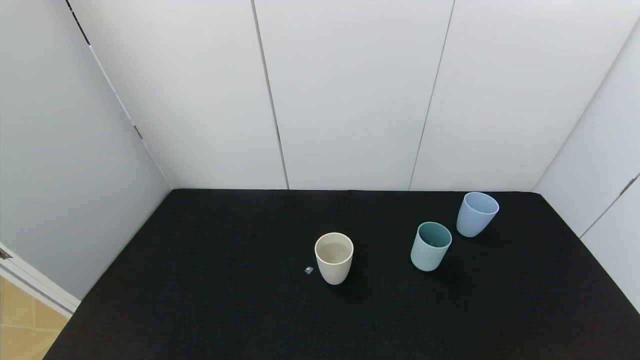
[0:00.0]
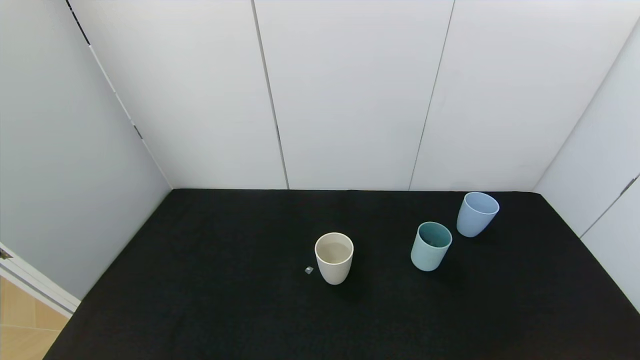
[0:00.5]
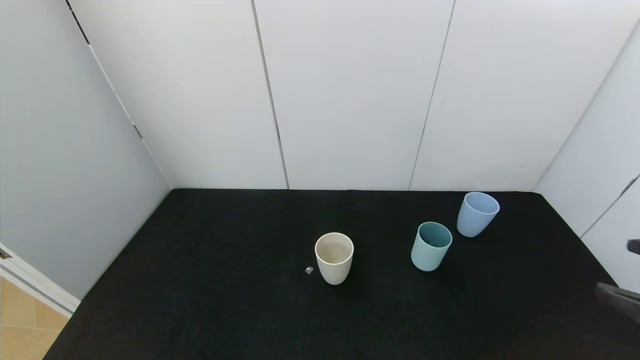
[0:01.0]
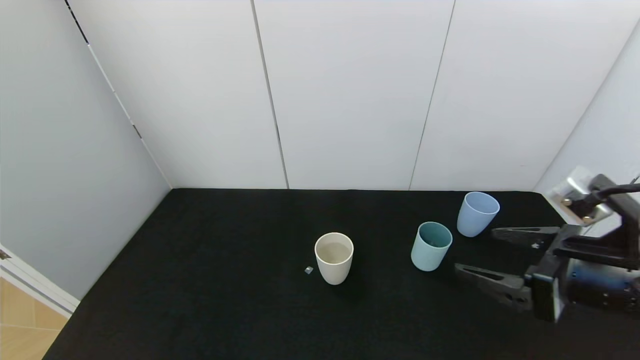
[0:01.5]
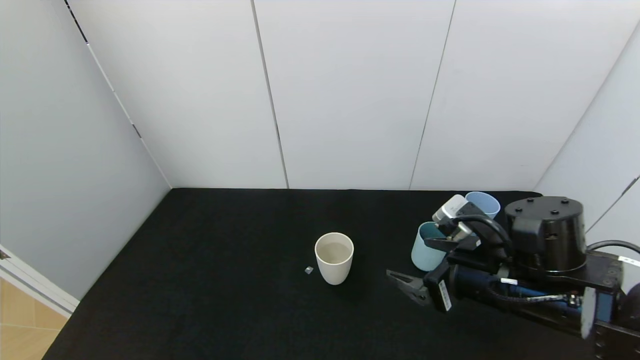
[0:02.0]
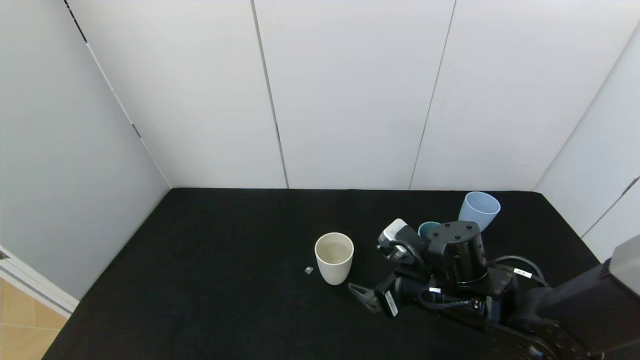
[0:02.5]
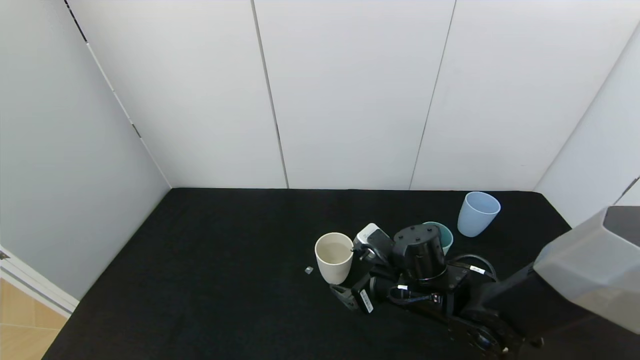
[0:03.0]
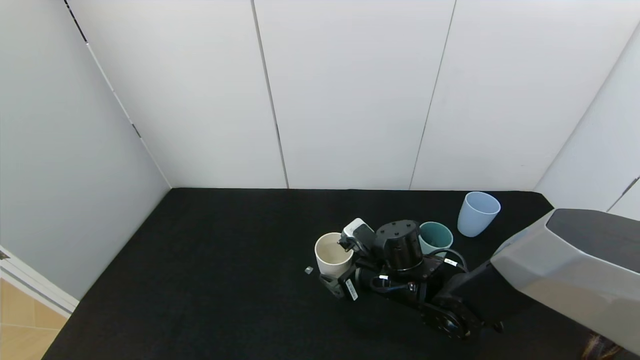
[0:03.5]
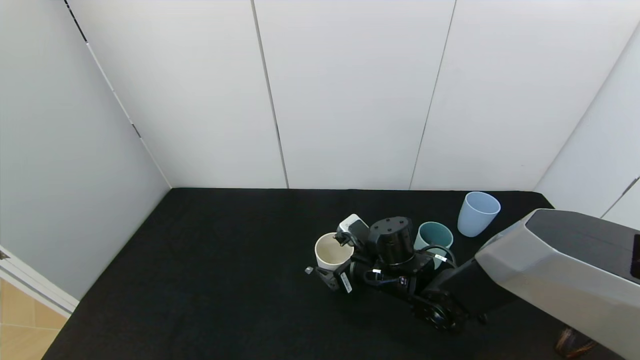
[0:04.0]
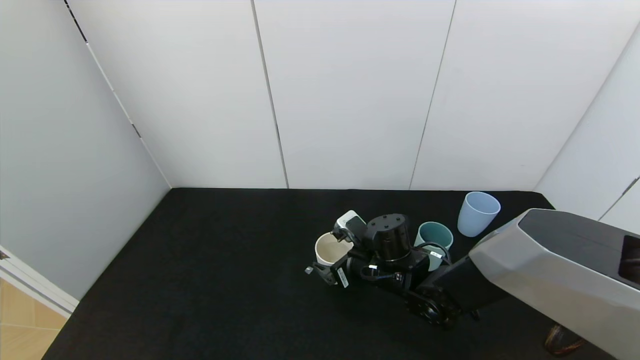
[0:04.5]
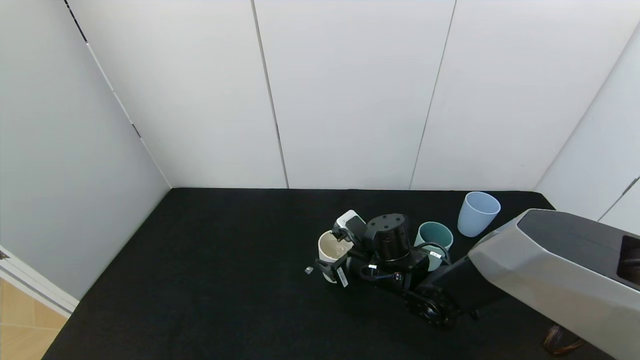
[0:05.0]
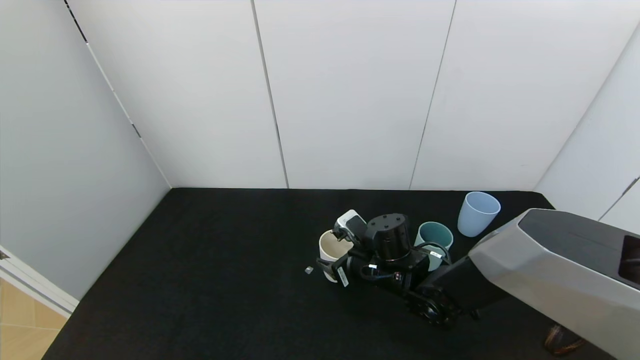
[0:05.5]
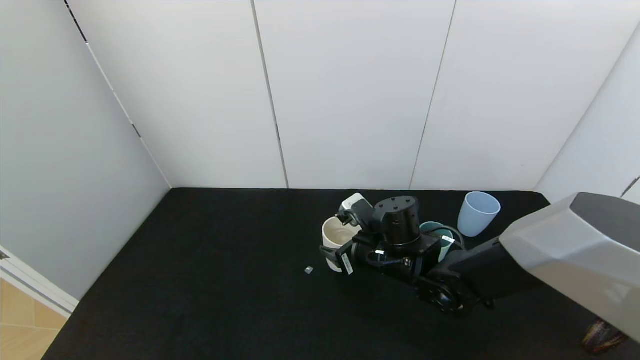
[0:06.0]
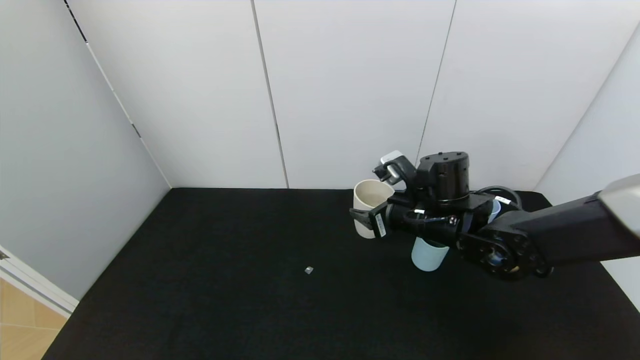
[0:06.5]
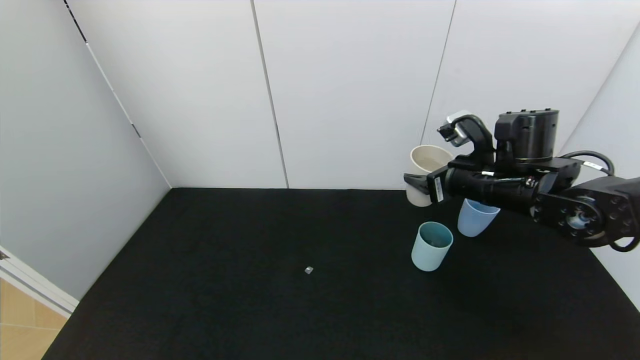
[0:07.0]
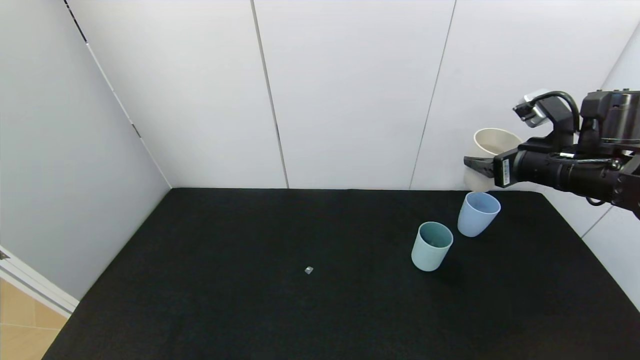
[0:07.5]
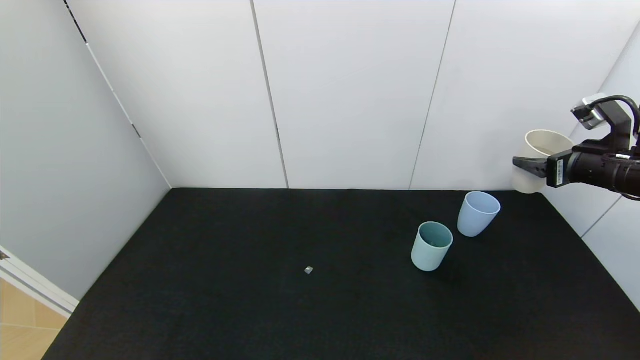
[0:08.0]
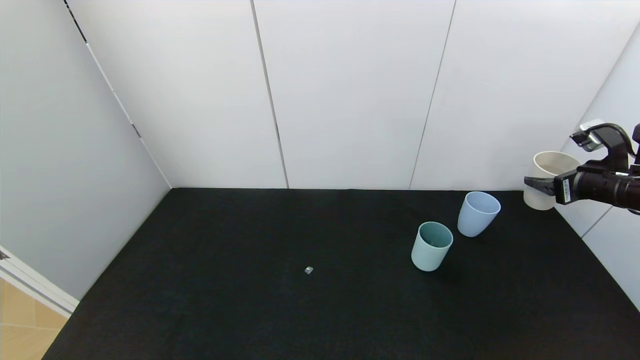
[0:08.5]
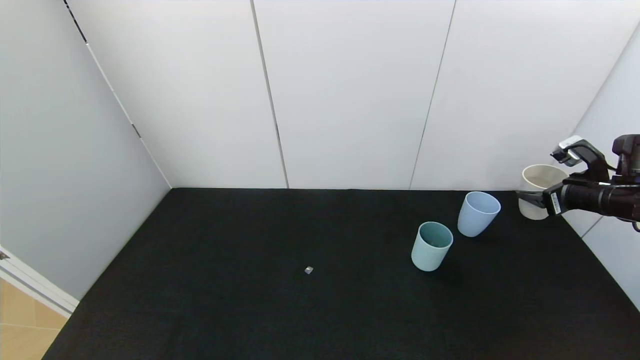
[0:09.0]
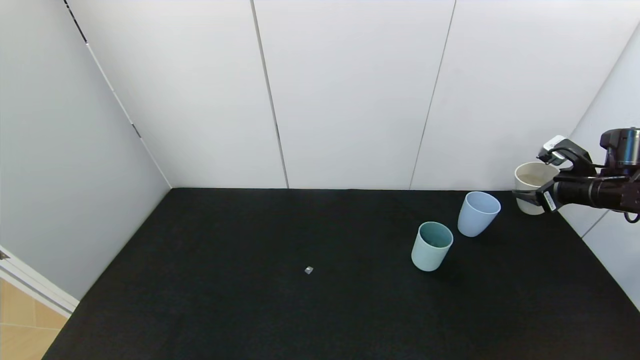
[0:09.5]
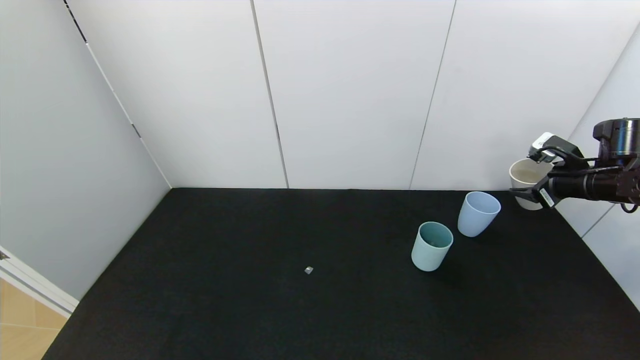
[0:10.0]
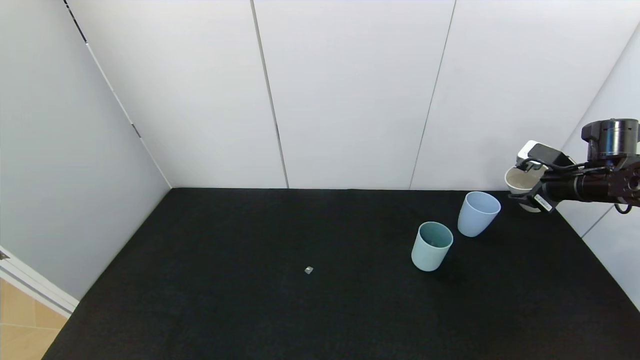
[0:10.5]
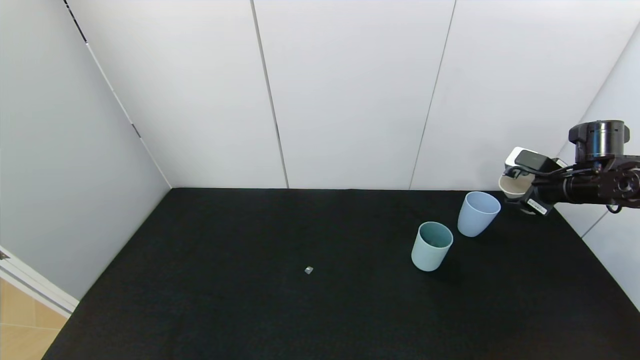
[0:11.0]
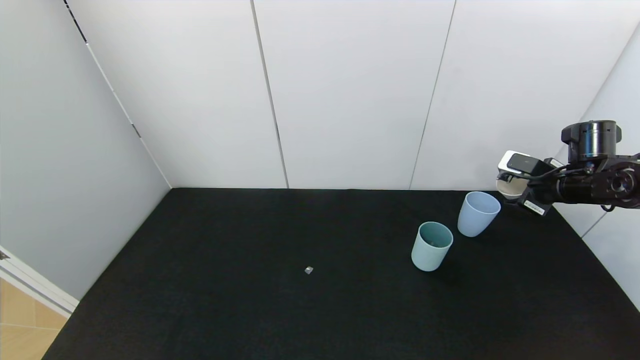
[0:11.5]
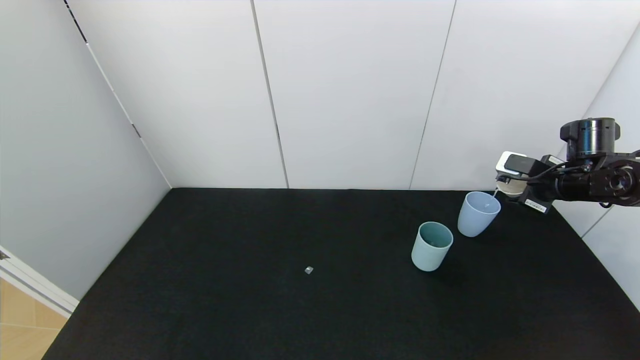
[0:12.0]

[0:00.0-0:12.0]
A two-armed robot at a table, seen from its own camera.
Task of the whole recording: use the gripper to pour the water into the other two cups on black table.
Step, 0.0 to 5.0 s: Grasp the white cup with the right gripper.
0.0 to 2.0 s: The right gripper goes some 35 cm forward and to the left.
2.0 to 4.0 s: The right gripper heads to the left, forward and downward, covering about 15 cm.
4.0 to 6.0 s: The right gripper closes up.
6.0 to 8.0 s: The right gripper goes roughly 35 cm to the right and upward.
8.0 to 10.0 s: The right gripper travels forward by some 5 cm.

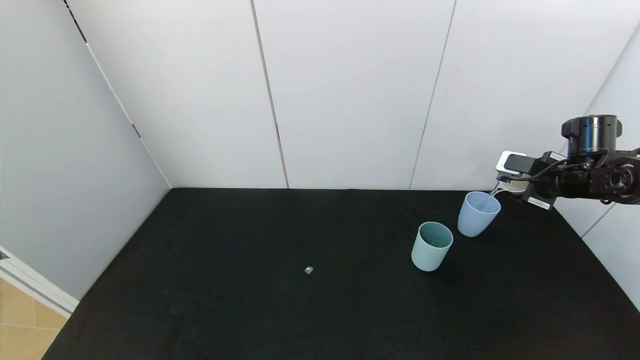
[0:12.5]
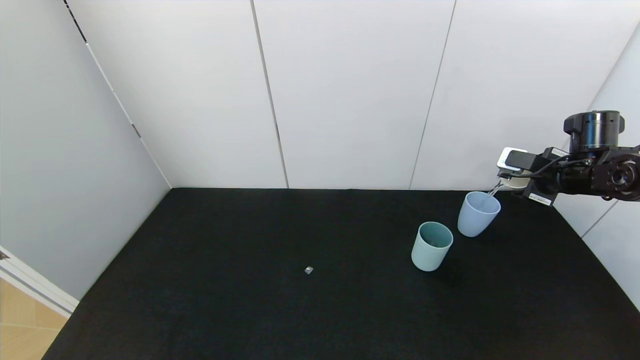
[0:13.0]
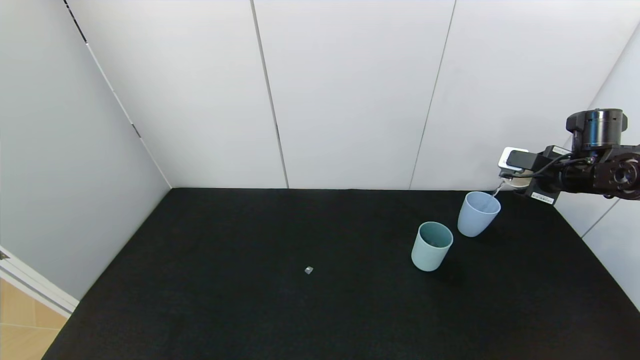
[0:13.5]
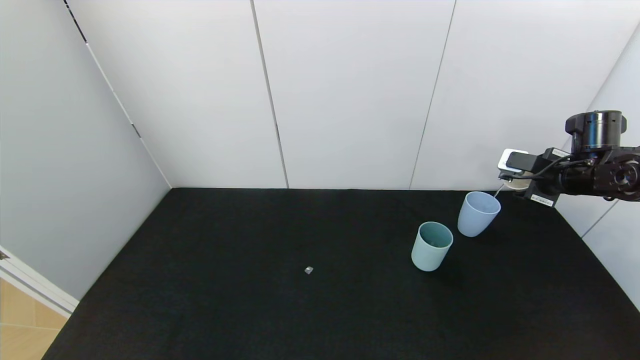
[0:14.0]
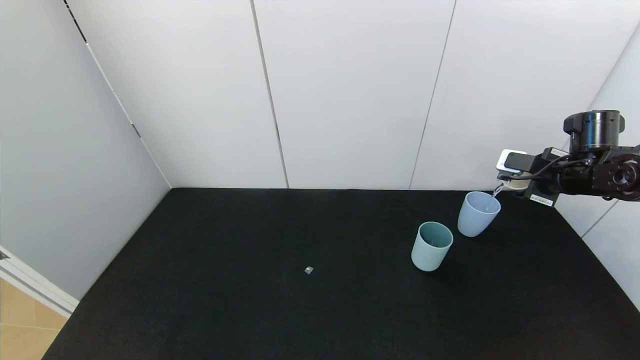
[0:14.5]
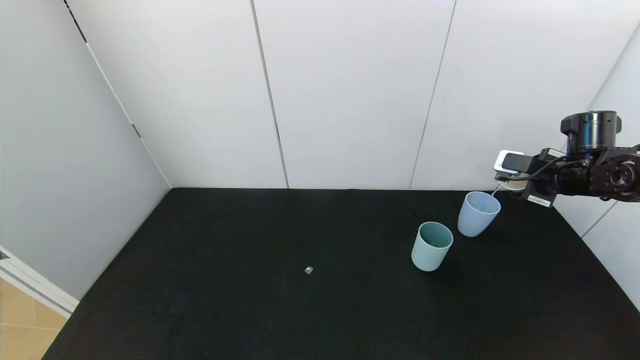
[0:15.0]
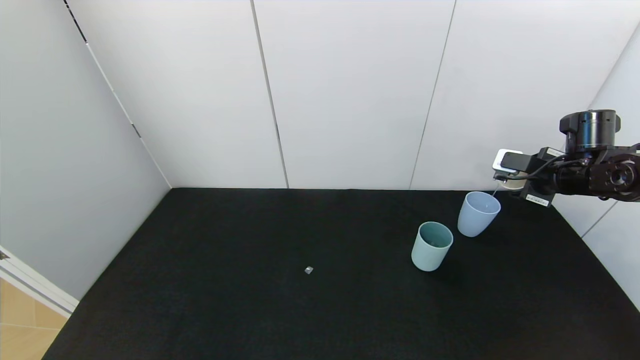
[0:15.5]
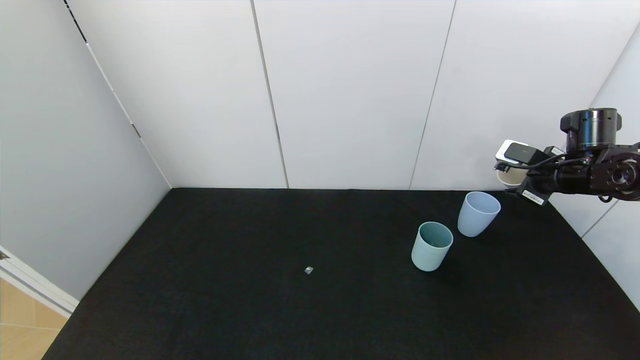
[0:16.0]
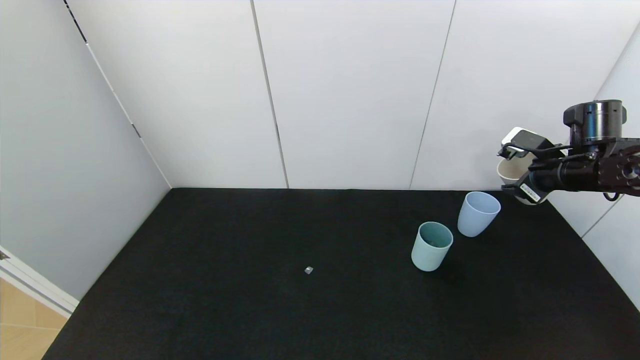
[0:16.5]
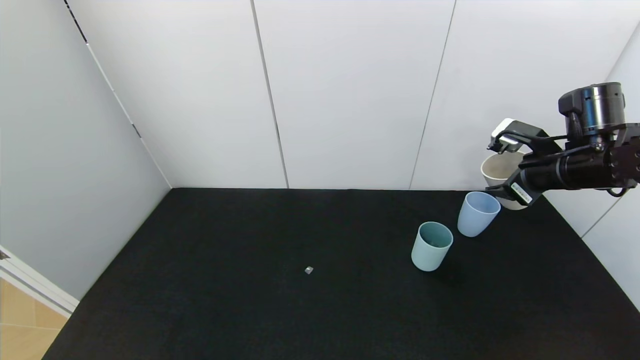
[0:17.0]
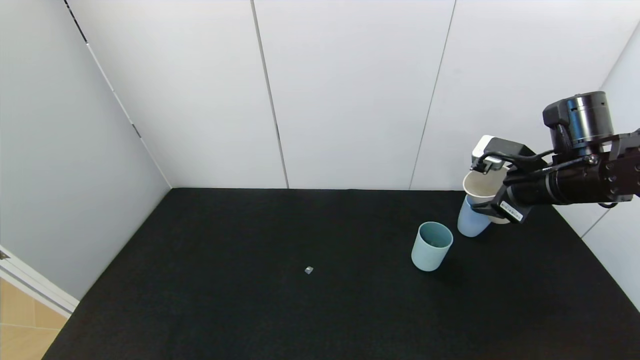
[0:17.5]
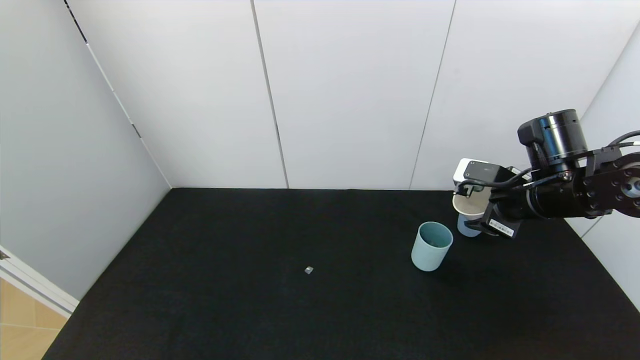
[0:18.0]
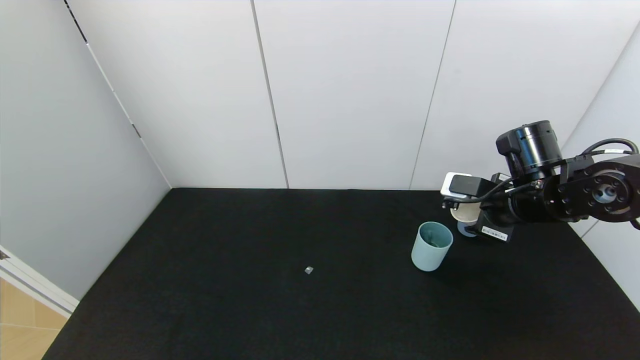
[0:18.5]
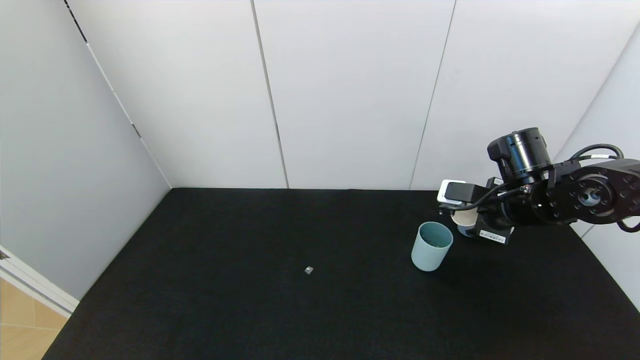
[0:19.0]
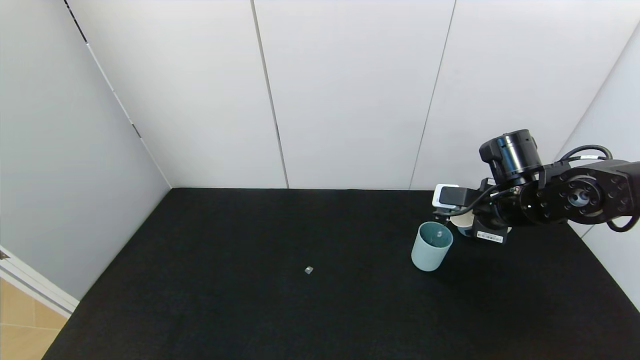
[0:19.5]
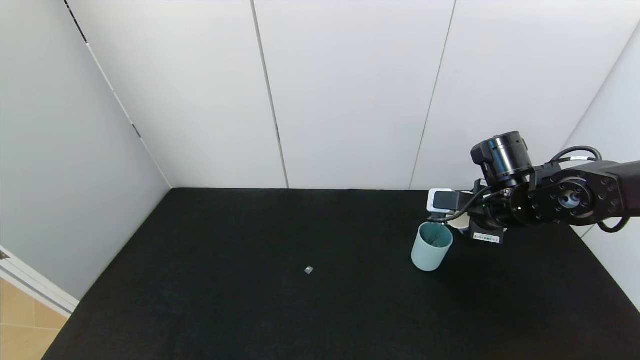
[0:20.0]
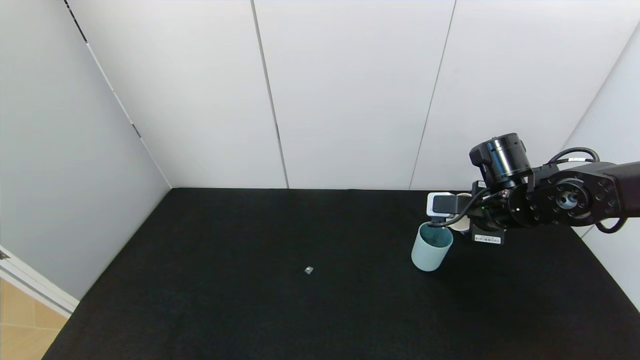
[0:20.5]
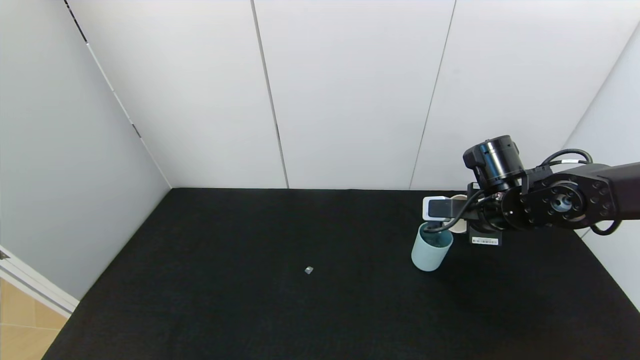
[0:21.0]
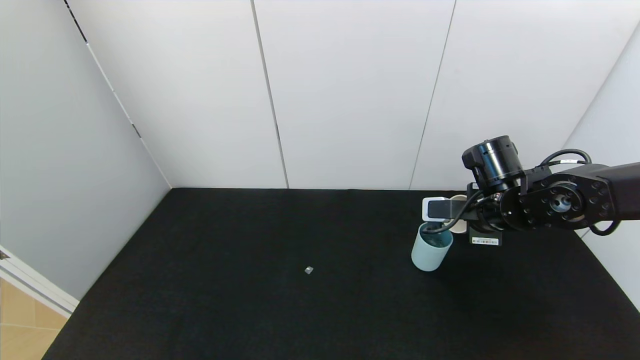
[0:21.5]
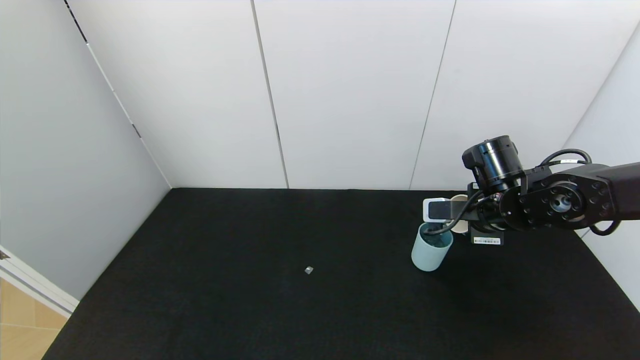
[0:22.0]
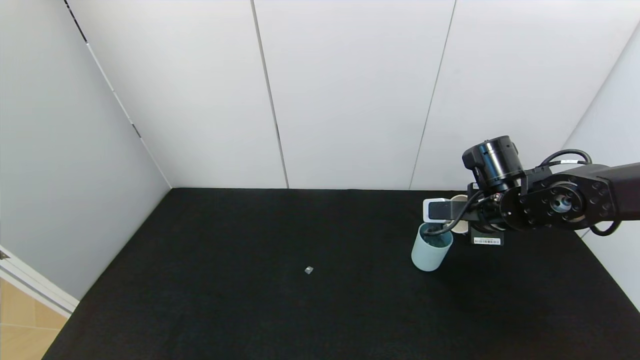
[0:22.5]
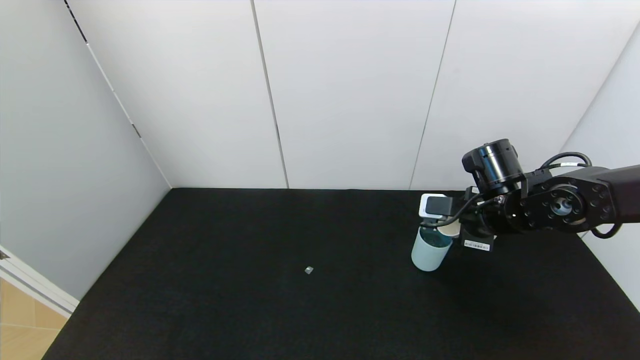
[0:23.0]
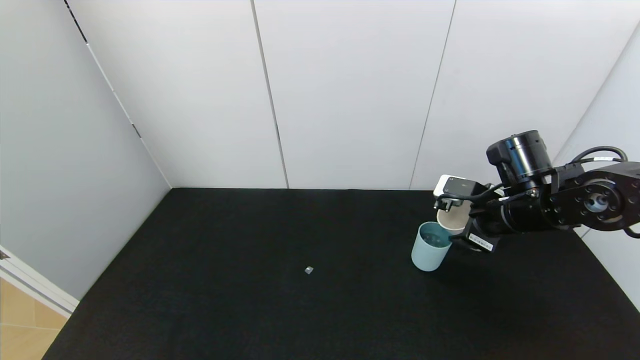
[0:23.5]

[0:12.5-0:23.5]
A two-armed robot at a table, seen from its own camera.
Task of the whole recording: use the gripper to pour the water into the other two cups on black table.
Step, 12.5 to 16.5 s: Pour water from white cup to blue cup with the right gripper.
12.5 to 14.5 s: Both grippers stay put.
14.5 to 16.0 s: The grippers move only a little.
16.0 to 18.0 s: The right gripper shifts some 15 cm to the left and backward.
20.0 to 21.5 s: The grippers stay close to where they were, moving slightly.
